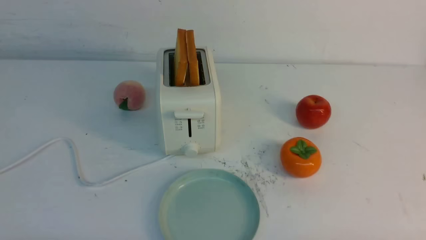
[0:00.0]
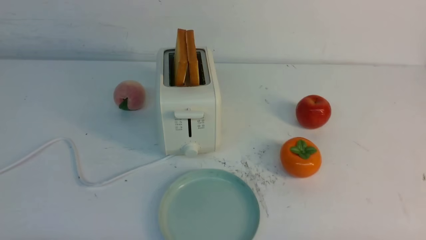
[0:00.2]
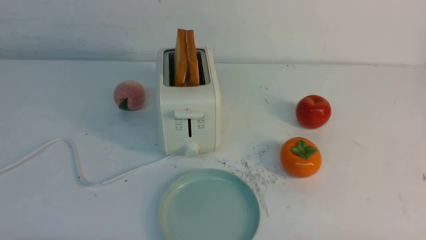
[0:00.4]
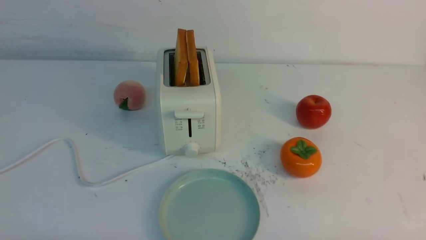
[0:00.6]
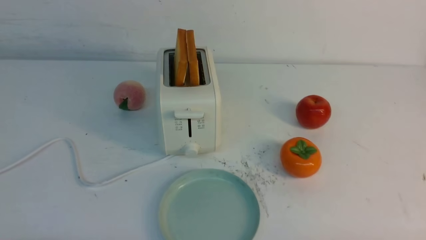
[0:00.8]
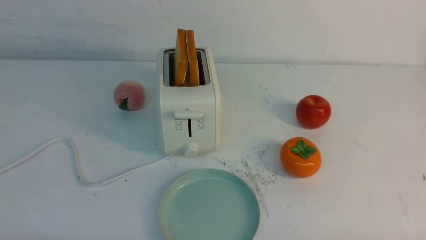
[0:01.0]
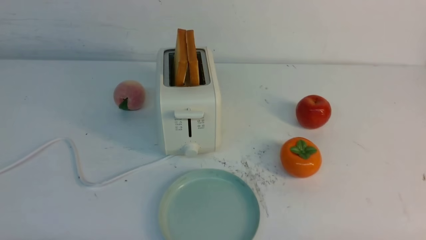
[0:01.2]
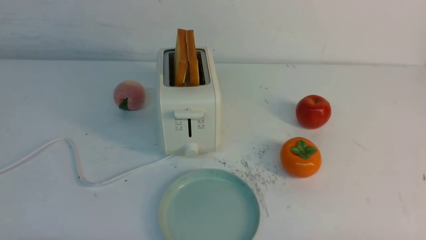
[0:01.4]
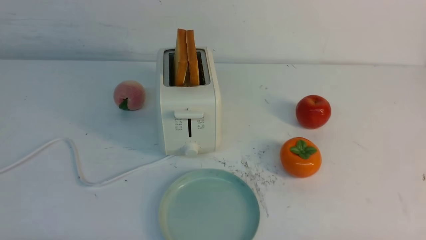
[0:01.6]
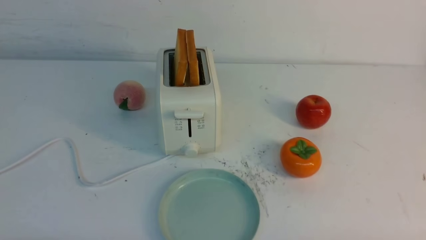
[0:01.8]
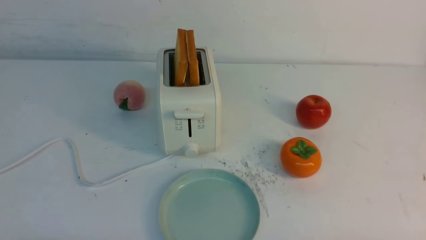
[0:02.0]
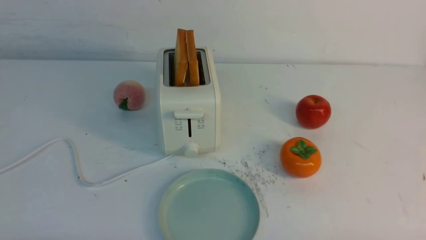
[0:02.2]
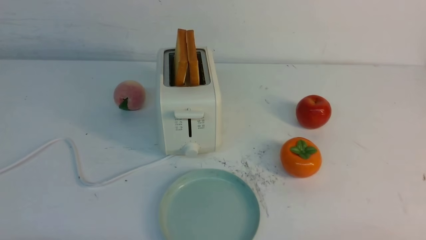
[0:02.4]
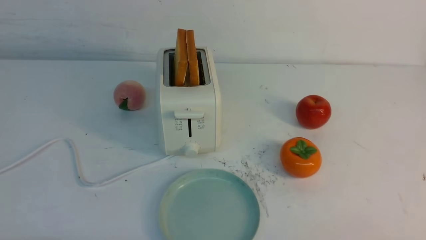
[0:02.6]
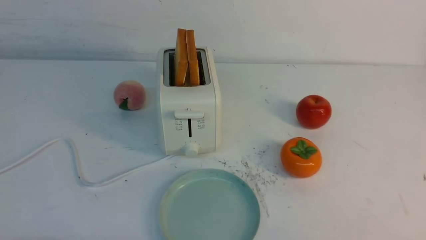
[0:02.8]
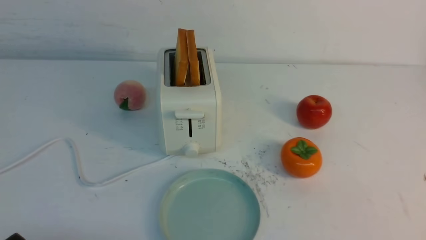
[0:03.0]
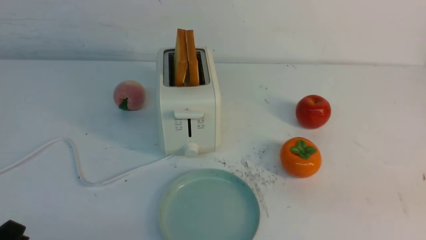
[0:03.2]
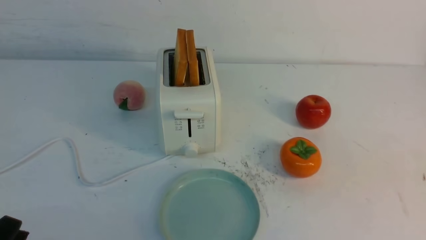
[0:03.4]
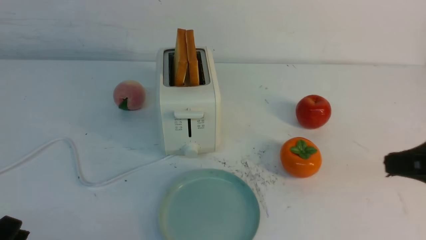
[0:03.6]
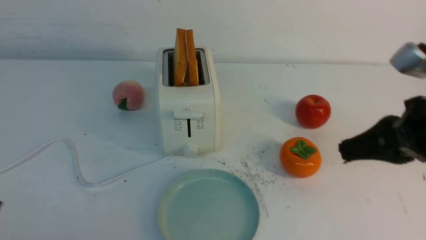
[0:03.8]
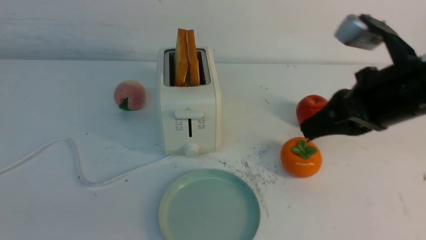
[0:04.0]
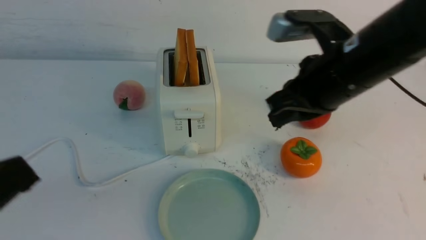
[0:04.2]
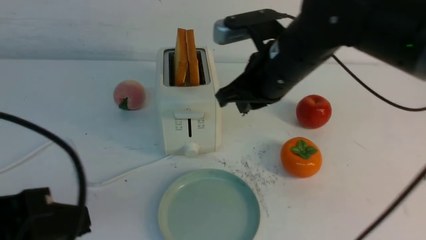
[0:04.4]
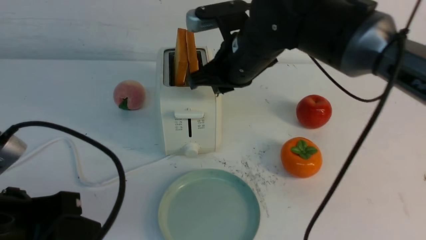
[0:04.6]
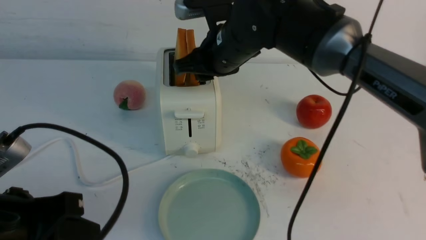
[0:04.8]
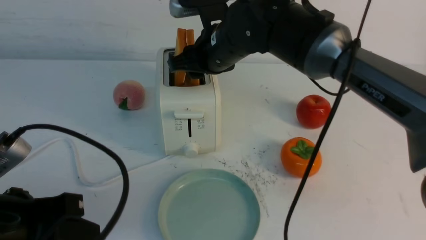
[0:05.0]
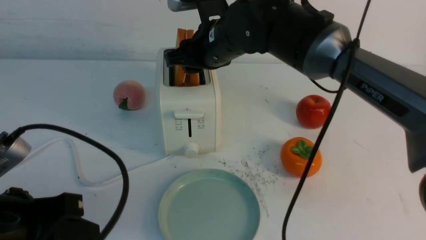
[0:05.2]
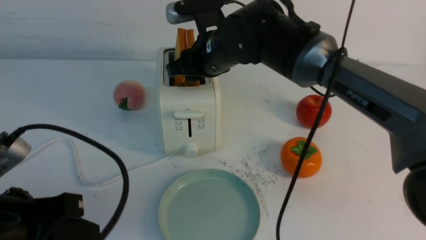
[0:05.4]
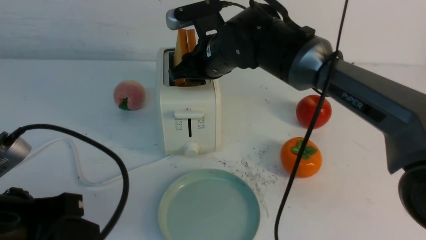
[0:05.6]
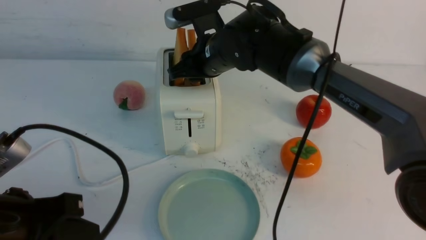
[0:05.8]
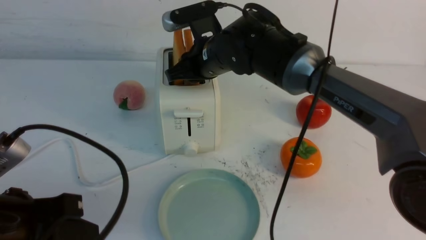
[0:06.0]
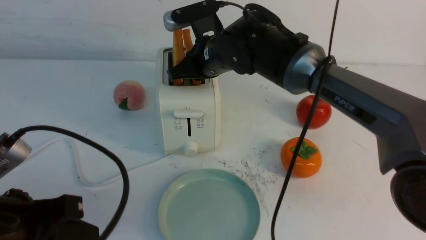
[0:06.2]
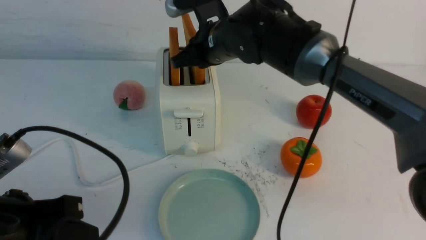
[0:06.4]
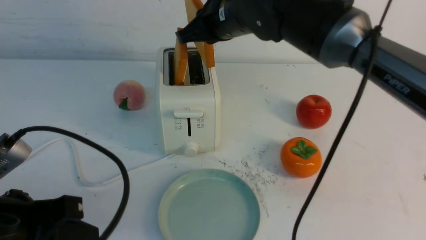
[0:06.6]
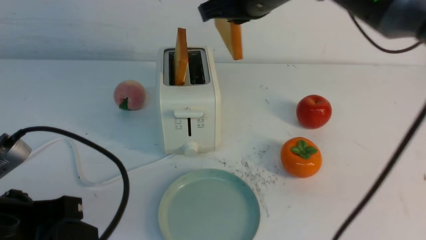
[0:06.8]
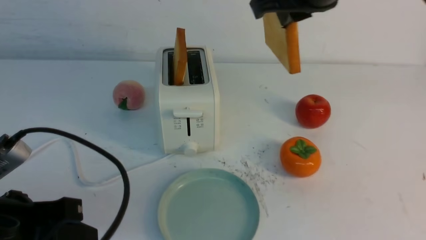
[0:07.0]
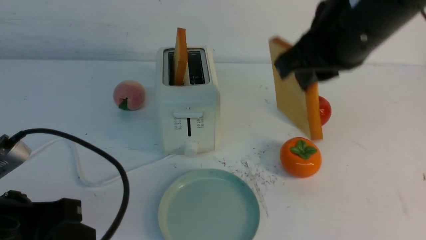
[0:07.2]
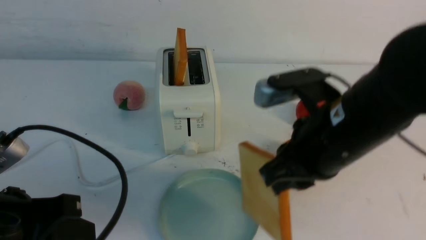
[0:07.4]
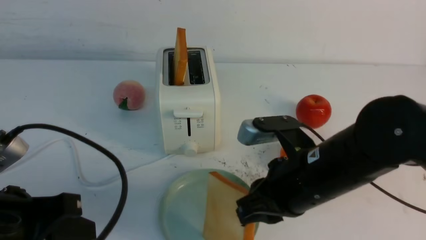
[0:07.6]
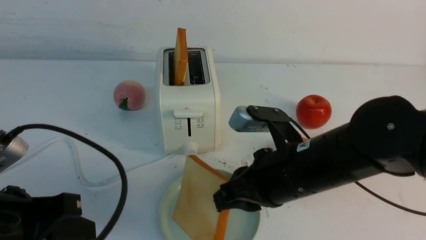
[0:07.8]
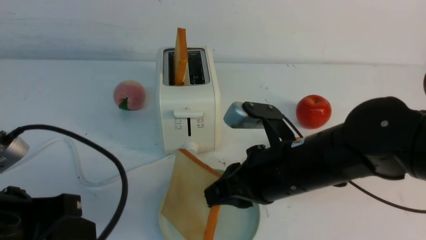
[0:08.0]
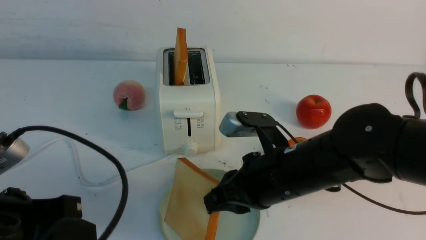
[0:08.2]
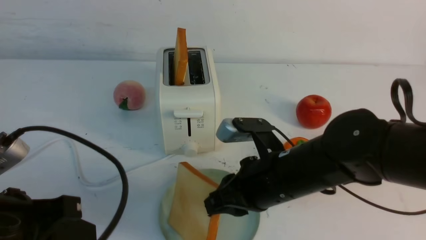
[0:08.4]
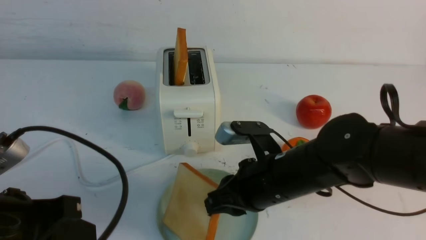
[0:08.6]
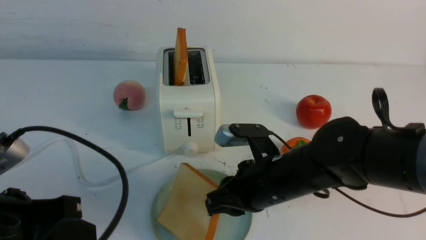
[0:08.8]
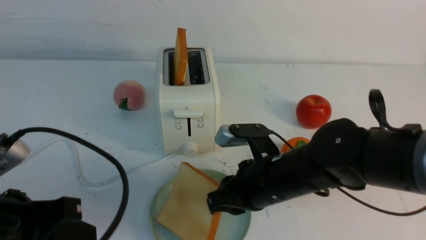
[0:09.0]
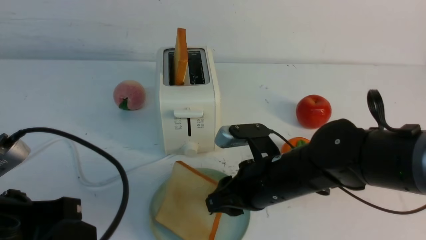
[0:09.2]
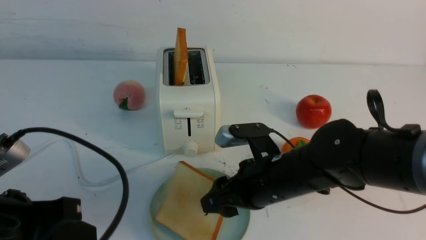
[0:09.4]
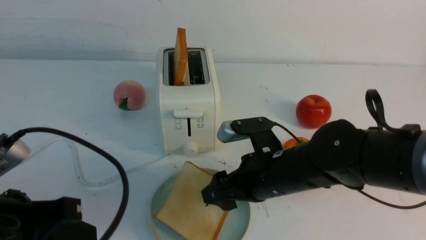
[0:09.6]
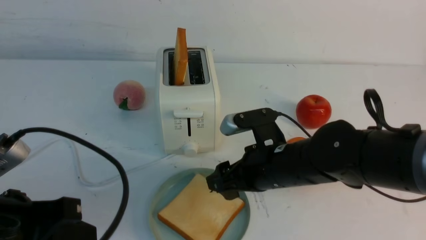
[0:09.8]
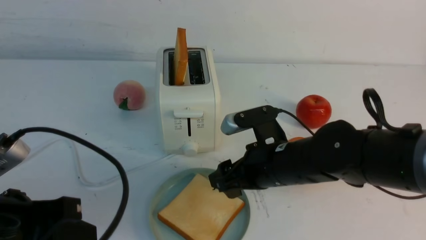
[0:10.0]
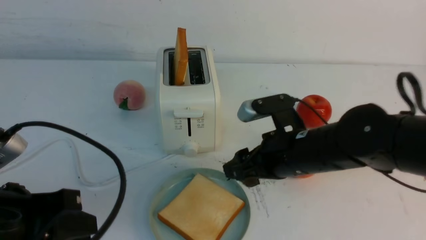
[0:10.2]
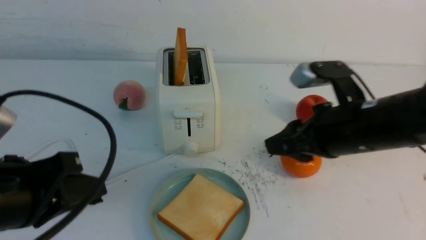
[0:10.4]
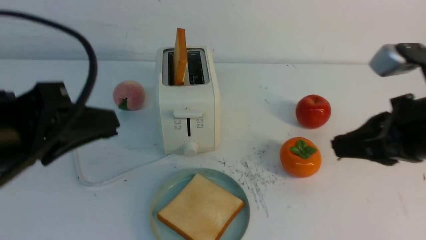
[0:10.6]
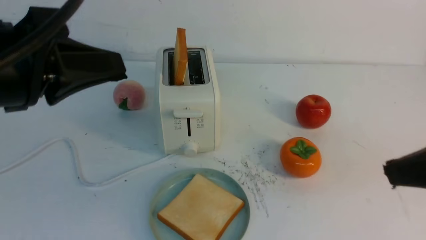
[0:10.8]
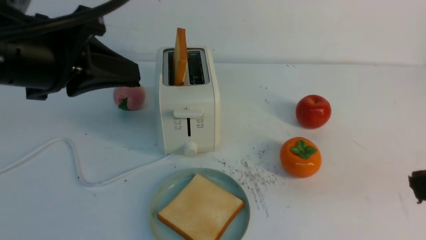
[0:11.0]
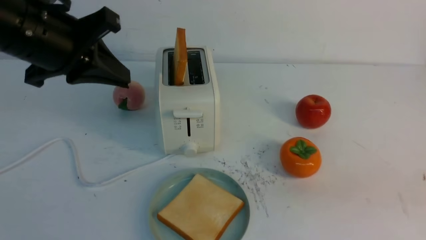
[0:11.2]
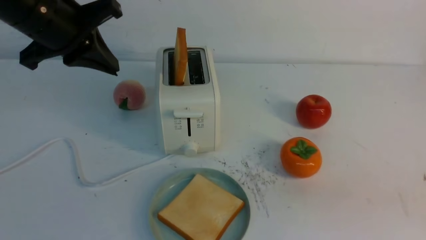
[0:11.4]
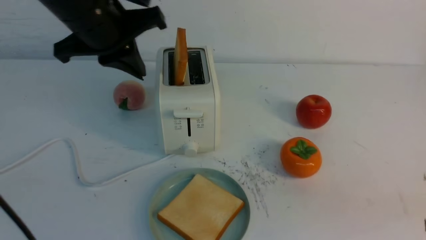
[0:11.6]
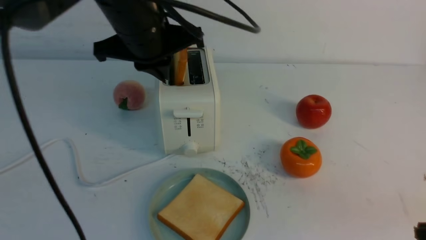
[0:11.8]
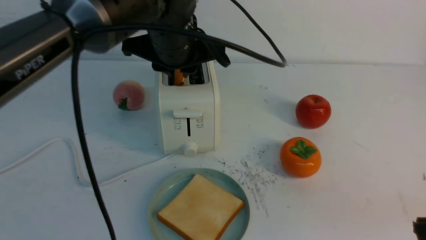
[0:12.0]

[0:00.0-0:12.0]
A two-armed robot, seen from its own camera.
Task of the whole recording: take toasted bread from bread machine on white table place on plate.
Step, 0:00.0 to 0:06.6: use the right arm to take out a slice of bread.
Step, 0:06.8 to 0:09.8: use the right arm to put a slice of bread into the plate.
0:00.0 to 0:01.6: The two grippers keep their place.
0:03.0 to 0:04.4: The right gripper shifts roughly 35 cm forward and to the left; the left gripper moves upward, roughly 15 cm, and closes.
0:04.4 to 0:06.0: The right gripper shifts roughly 10 cm forward and to the left.
0:06.0 to 0:07.6: The right gripper travels backward and to the right by approximately 20 cm.
0:07.6 to 0:09.0: The right gripper moves downward, some 5 cm.
0:09.0 to 0:10.4: The right gripper shifts roughly 15 cm to the right and upward, and opens and closes again.
0:10.4 to 0:12.0: The right gripper travels backward and to the right by roughly 20 cm, and closes; the left gripper shifts some 25 cm forward and to the right.

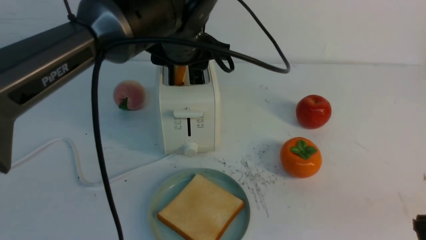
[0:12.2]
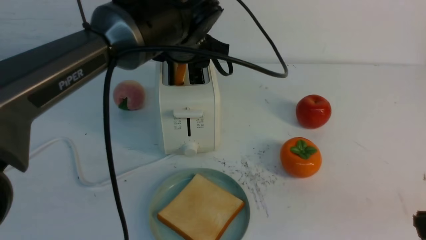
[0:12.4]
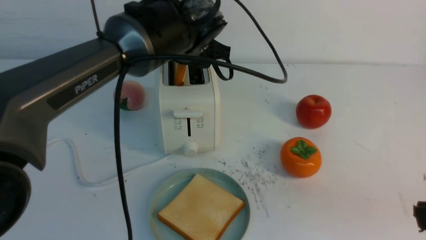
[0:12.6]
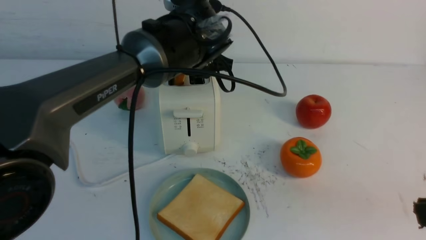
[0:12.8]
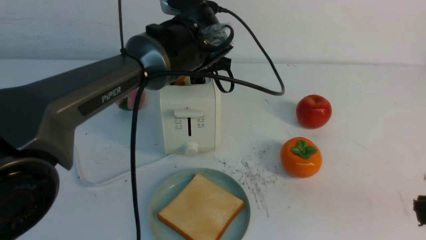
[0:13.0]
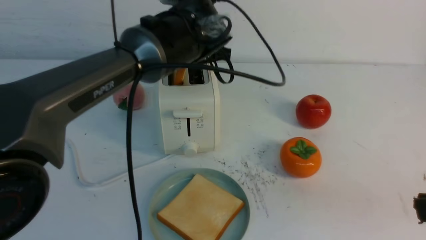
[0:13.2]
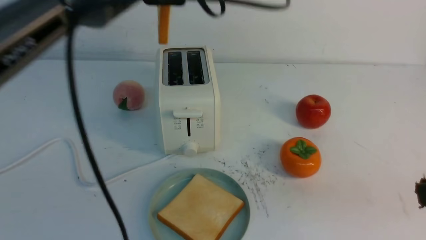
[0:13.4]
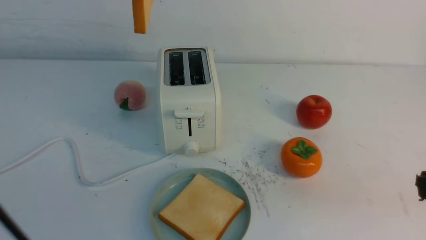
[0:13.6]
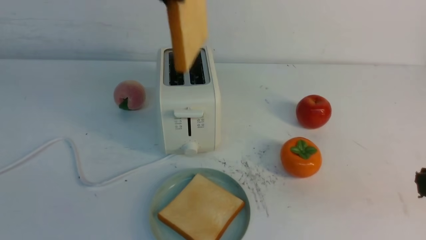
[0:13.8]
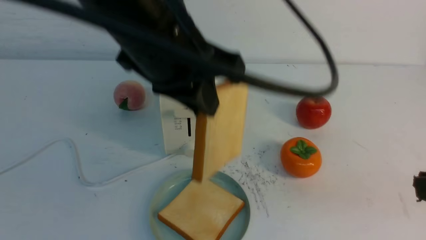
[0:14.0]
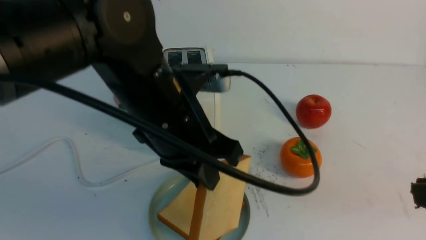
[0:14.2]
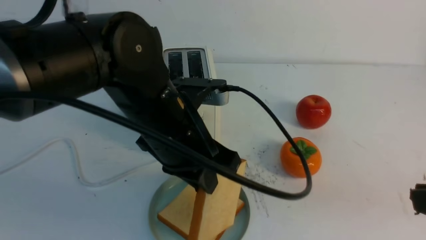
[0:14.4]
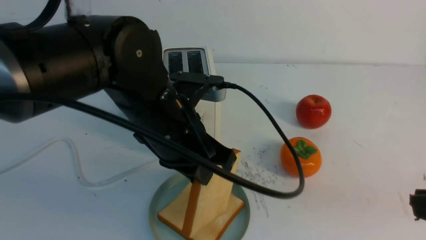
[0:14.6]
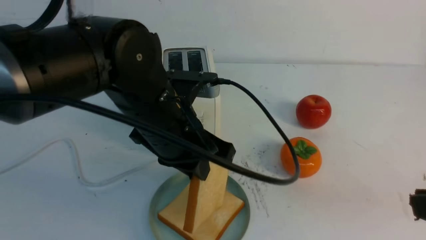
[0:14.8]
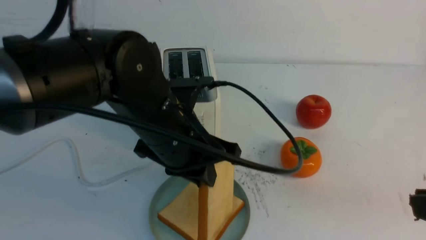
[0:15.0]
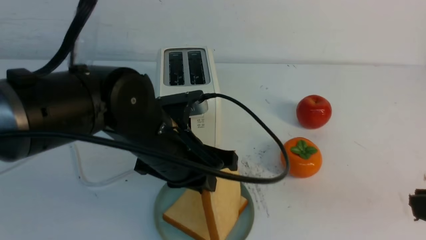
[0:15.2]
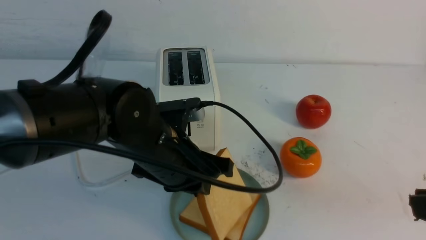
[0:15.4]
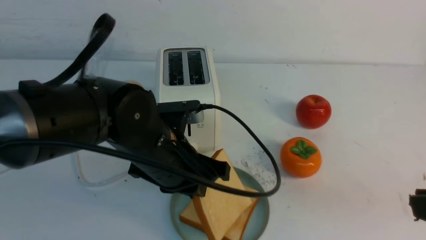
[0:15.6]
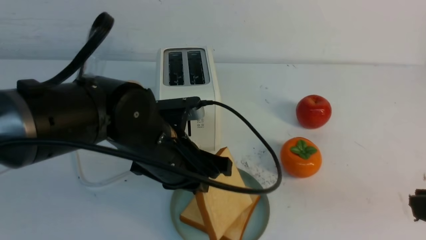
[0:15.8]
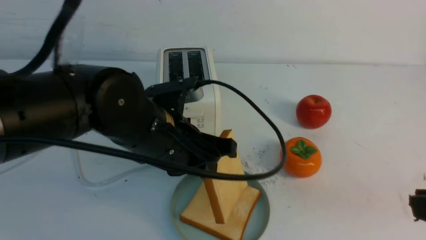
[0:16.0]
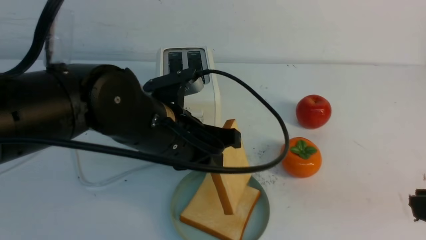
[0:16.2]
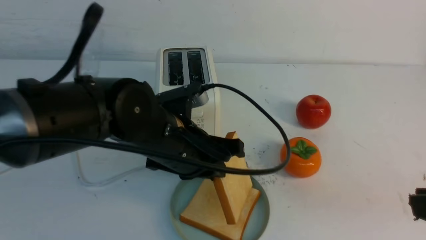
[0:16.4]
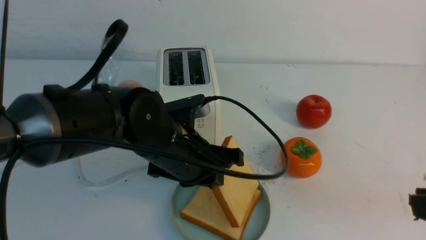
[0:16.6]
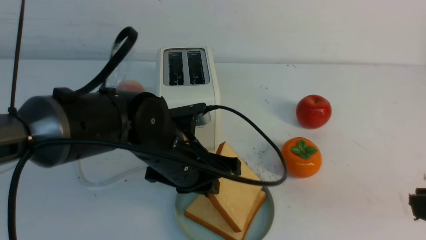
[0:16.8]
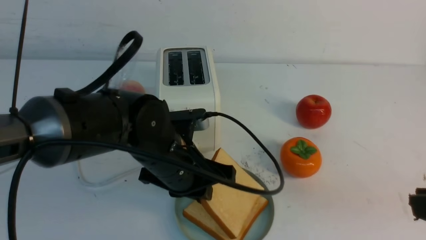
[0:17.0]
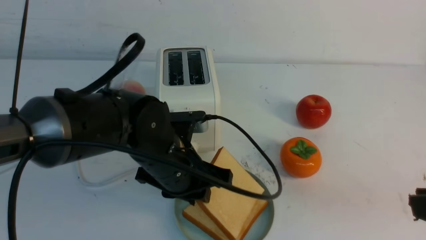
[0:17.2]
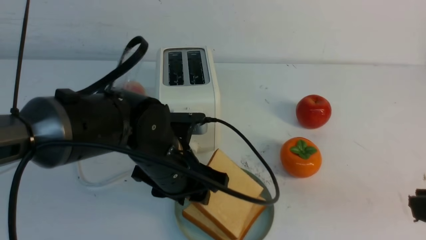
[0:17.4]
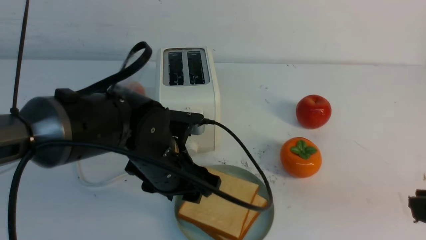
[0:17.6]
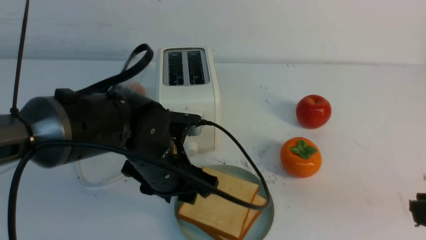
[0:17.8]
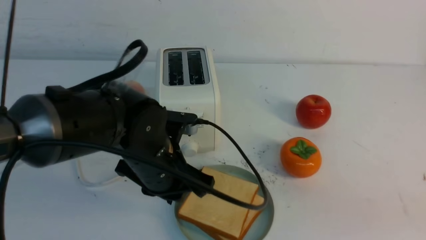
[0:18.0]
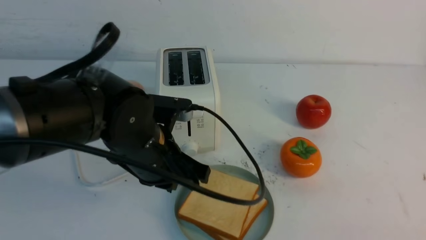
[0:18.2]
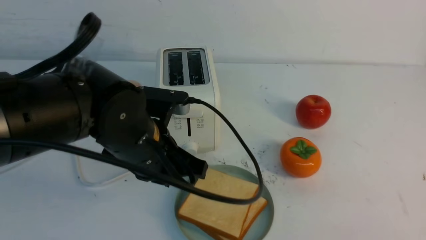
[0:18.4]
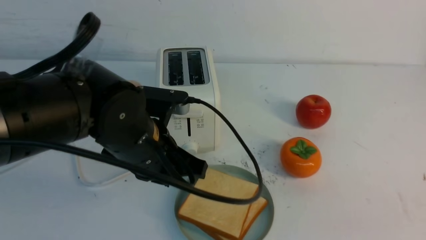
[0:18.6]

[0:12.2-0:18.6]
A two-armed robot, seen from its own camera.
Task of the whole recording: take toasted bread from bread machine on white table place on plate.
Step, 0:13.4 to 0:17.8: use the left arm to put a slice of bread into the empty plate.
0:12.2 to 0:13.8: The left gripper goes approximately 15 cm upward and backward, and closes its fingers.
0:13.8 to 0:15.4: The left gripper heads downward, covering roughly 20 cm.
0:15.4 to 0:17.0: The grippers move only a little.
0:17.0 to 0:18.6: The right gripper travels backward by roughly 5 cm. Meanwhile the left gripper ends up about 5 cm from where it was, and closes.
